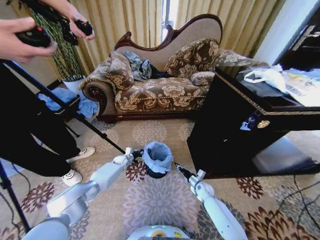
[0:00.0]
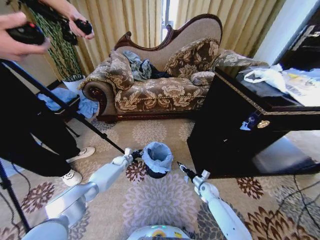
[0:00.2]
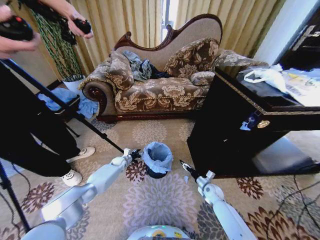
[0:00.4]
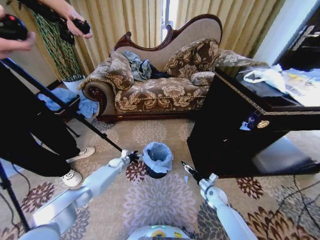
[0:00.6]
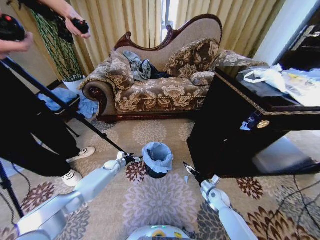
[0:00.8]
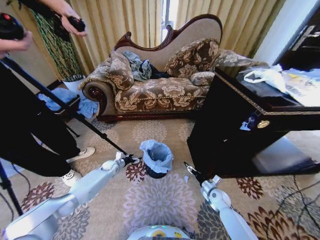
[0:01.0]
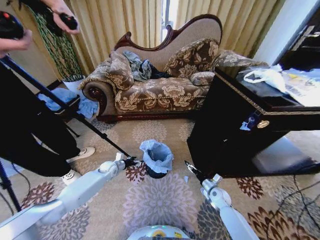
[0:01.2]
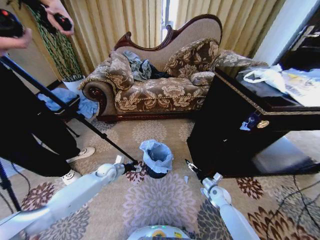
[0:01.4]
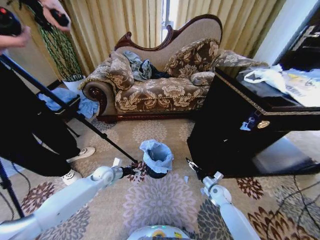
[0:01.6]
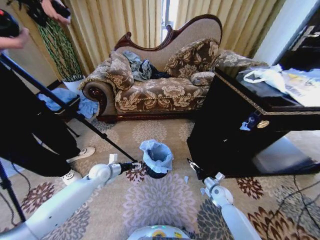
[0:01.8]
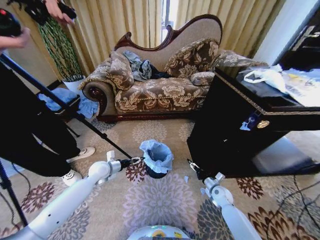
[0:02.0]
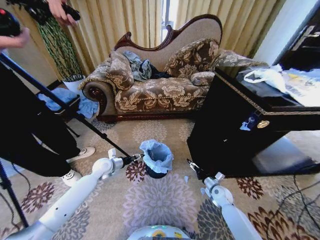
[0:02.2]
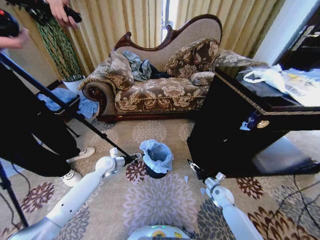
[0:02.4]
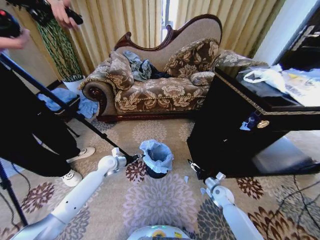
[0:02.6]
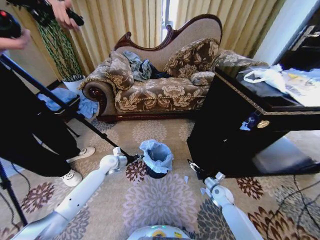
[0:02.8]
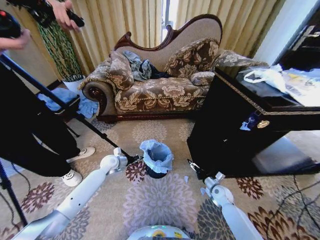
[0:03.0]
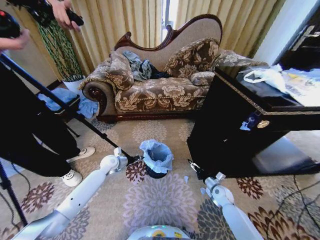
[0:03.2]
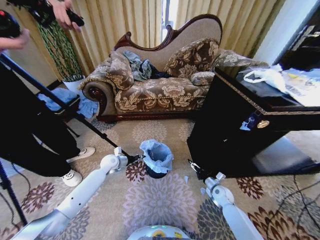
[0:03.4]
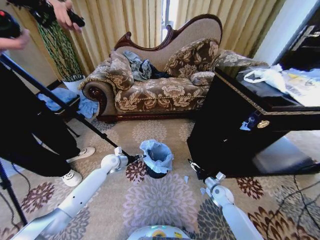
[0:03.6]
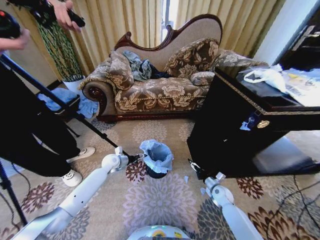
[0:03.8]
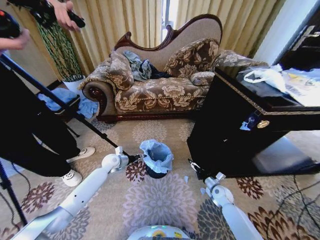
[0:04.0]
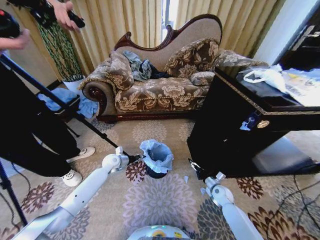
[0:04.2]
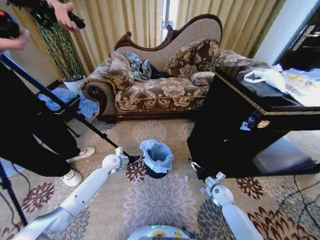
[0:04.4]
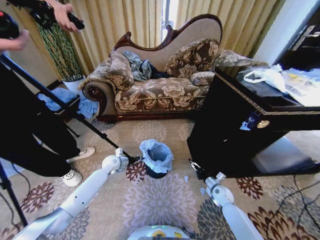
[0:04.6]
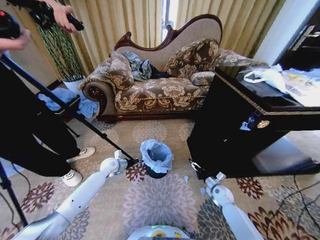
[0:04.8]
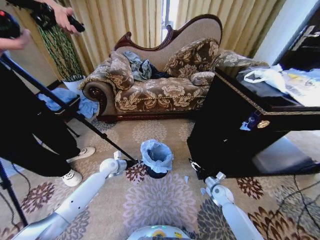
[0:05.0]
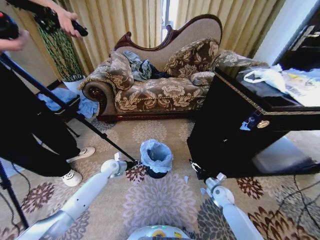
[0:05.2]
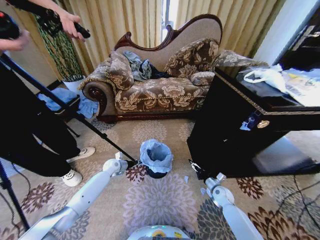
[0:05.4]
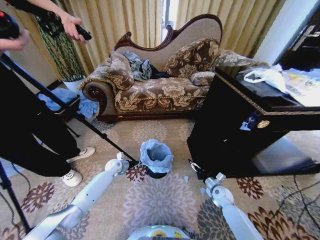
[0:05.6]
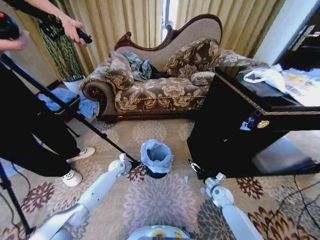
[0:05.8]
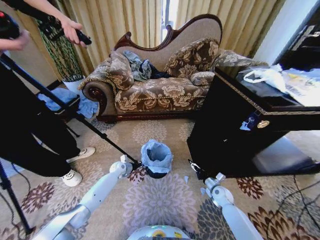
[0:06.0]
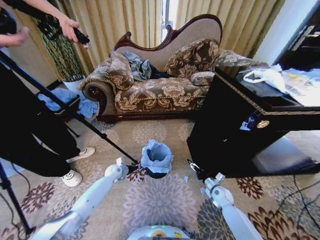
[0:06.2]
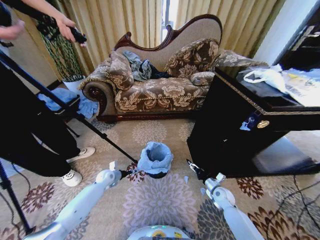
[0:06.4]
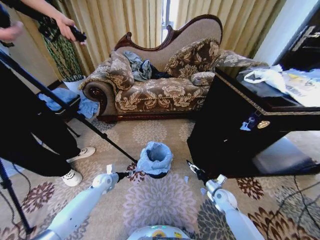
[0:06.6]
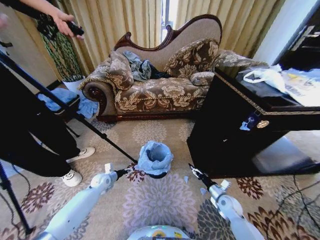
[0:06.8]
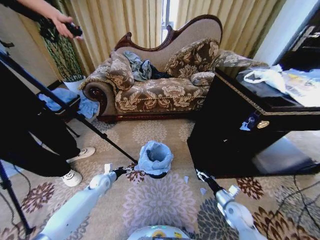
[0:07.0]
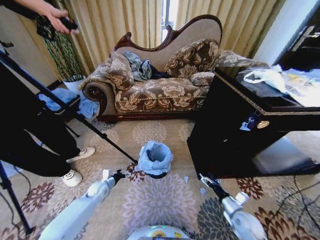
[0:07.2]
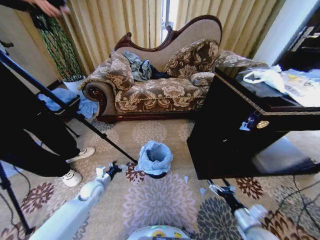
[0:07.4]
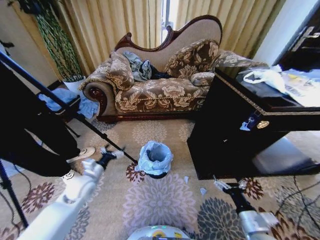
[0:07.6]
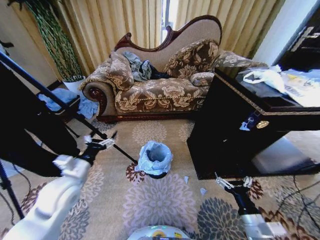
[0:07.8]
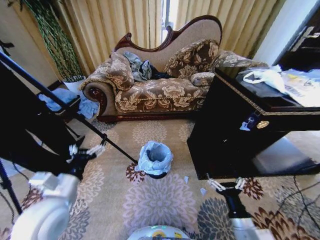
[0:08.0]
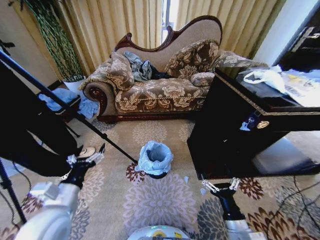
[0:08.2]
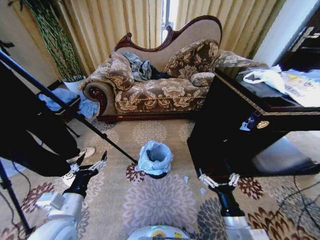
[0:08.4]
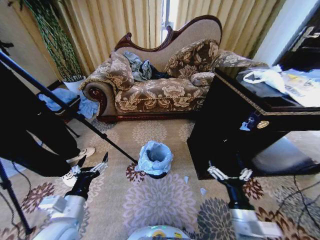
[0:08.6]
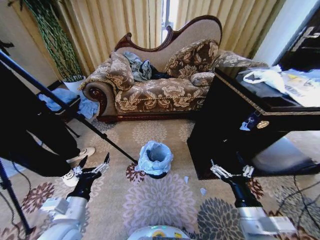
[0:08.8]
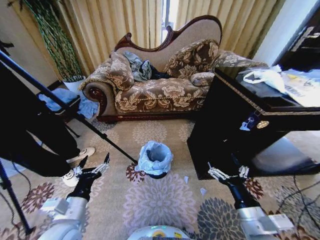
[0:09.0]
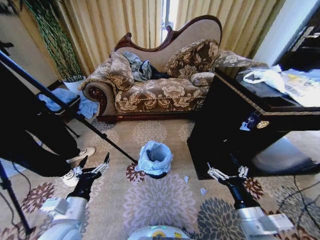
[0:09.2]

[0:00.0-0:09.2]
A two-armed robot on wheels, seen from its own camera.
Task of the whole recording: Place a garbage bag over the trash bin.
0:00.0 to 0:01.6: The left gripper goes about 15 cm backward and upward, and opens its fingers. The right gripper moves to the right, some 5 cm, and opens up.
0:01.6 to 0:03.0: The left gripper is displaced forward by roughly 5 cm, and closes its fingers.
0:03.0 to 0:04.6: The left gripper opens and closes again.
0:04.6 to 0:06.2: The left gripper moves downward, roughly 10 cm.
0:06.2 to 0:07.6: The right gripper moves backward and upward, about 25 cm. Meanwhile the left gripper heads upward and backward, covering some 20 cm, and opens its fingers.
0:07.6 to 0:09.2: The left gripper travels backward and upward by approximately 15 cm, while the right gripper moves upward and to the left, about 10 cm.
